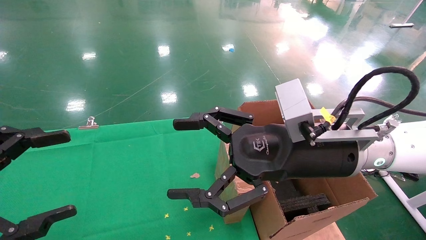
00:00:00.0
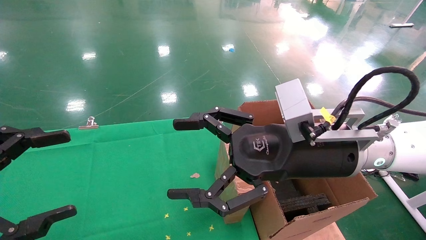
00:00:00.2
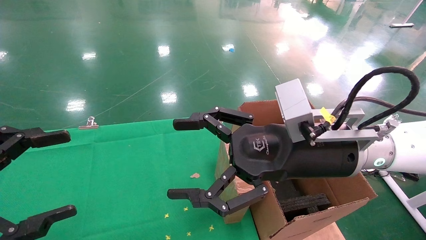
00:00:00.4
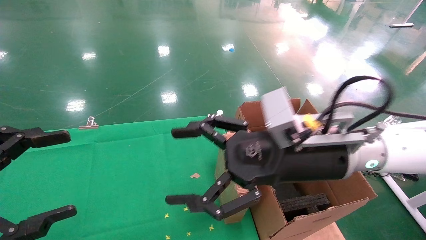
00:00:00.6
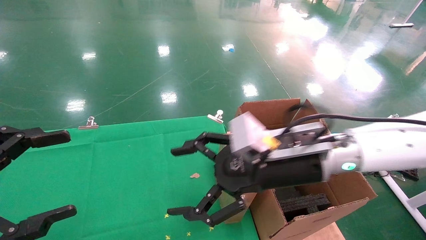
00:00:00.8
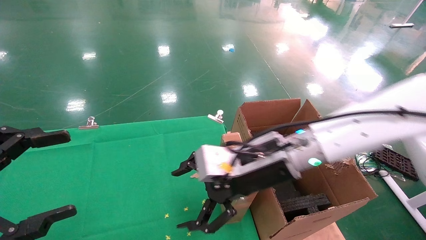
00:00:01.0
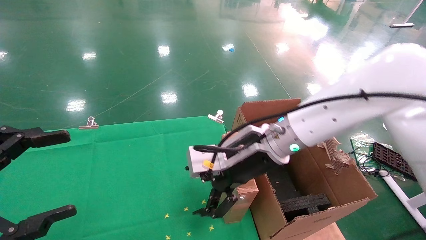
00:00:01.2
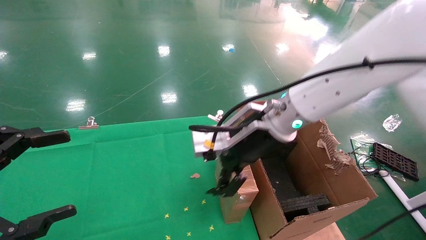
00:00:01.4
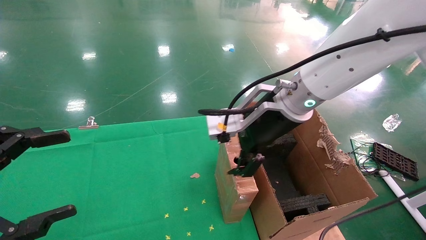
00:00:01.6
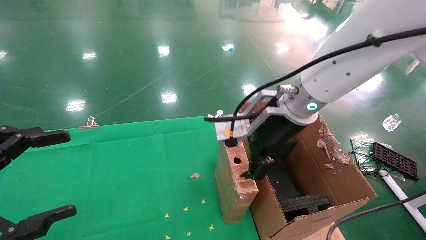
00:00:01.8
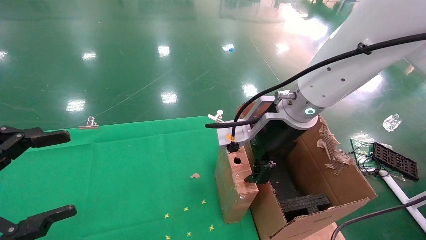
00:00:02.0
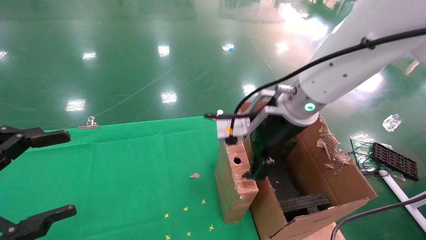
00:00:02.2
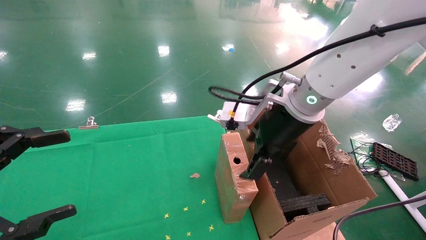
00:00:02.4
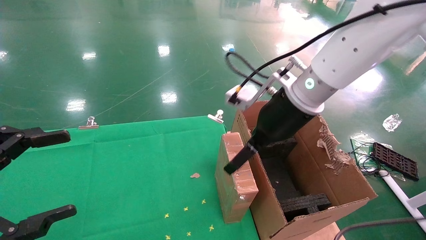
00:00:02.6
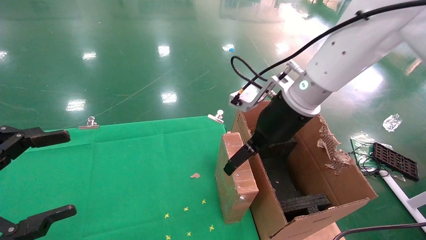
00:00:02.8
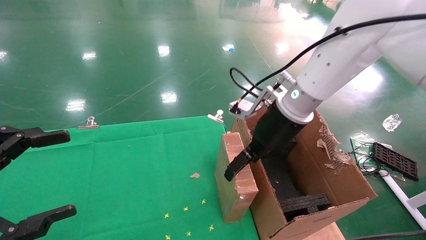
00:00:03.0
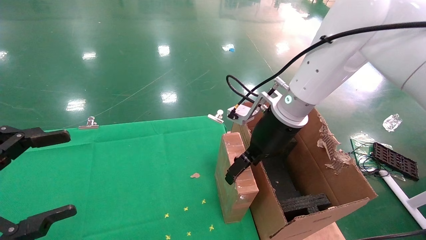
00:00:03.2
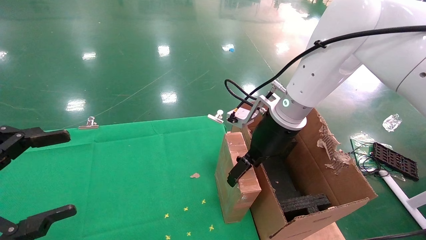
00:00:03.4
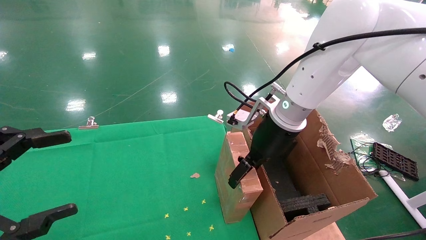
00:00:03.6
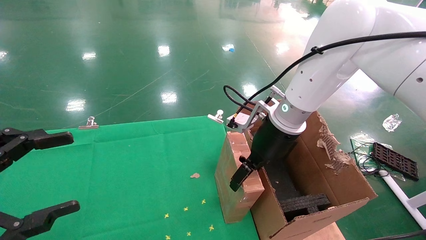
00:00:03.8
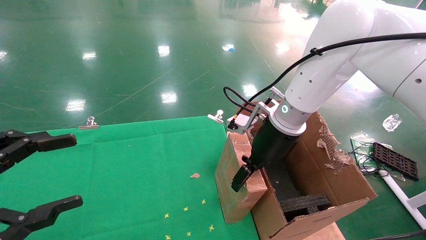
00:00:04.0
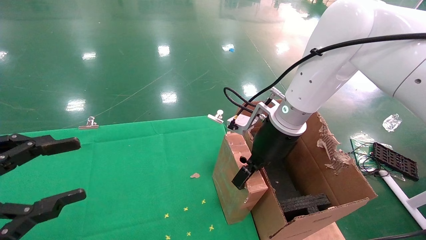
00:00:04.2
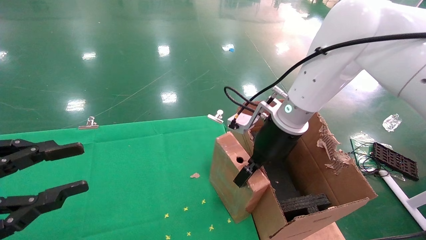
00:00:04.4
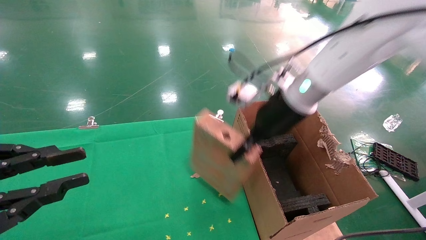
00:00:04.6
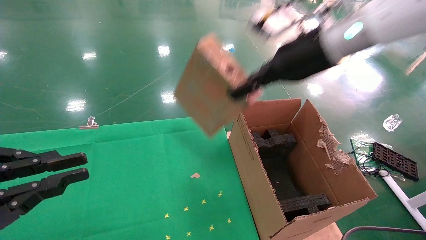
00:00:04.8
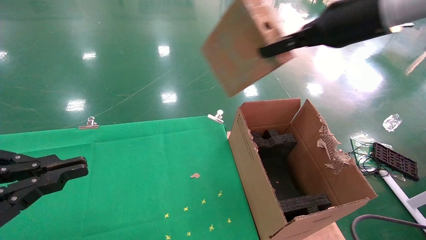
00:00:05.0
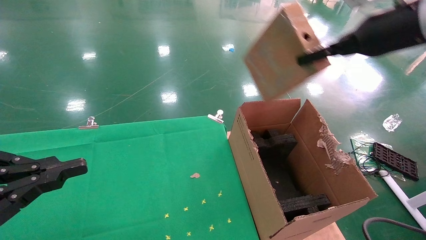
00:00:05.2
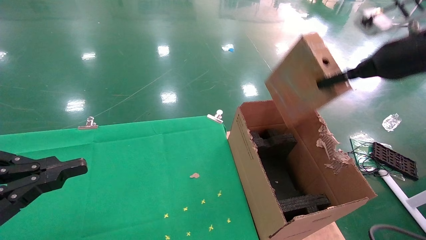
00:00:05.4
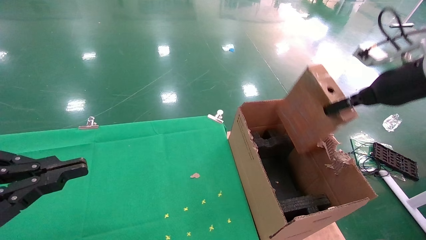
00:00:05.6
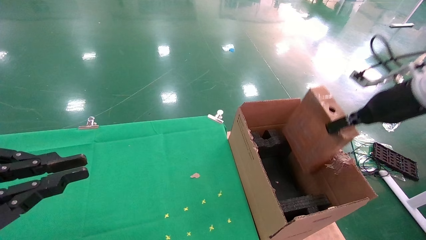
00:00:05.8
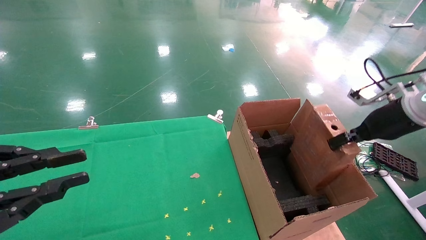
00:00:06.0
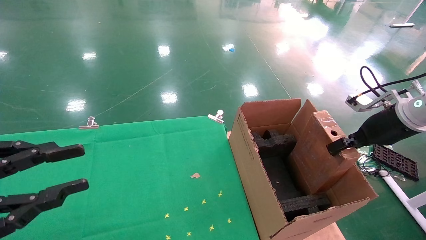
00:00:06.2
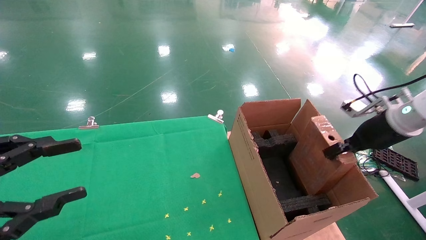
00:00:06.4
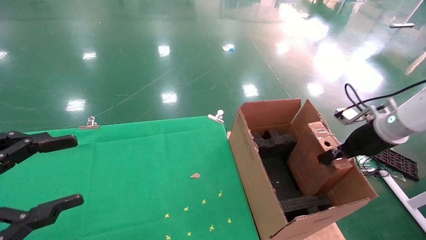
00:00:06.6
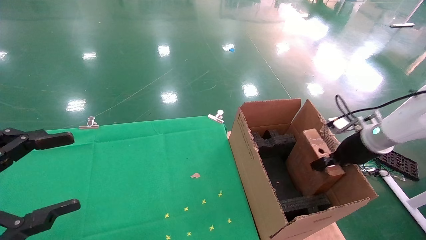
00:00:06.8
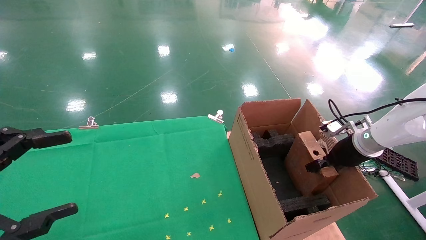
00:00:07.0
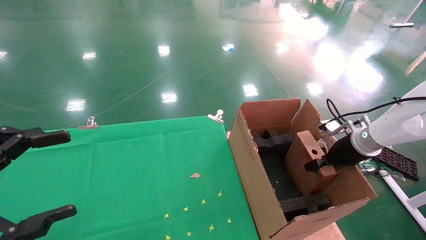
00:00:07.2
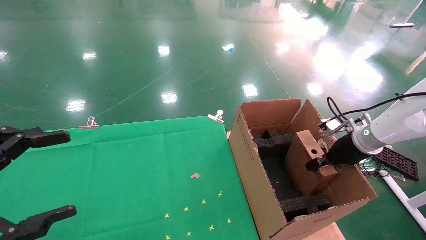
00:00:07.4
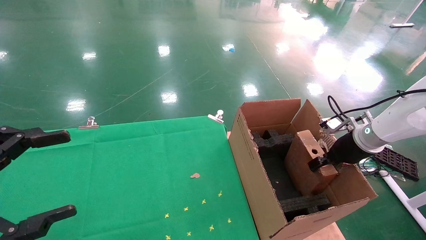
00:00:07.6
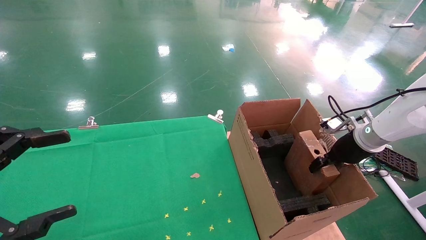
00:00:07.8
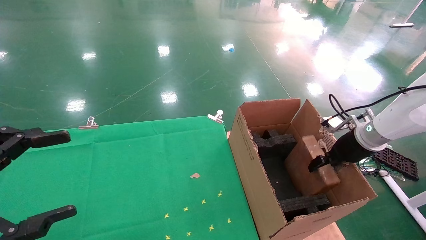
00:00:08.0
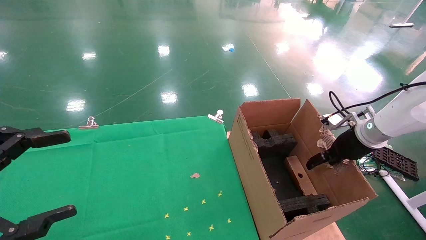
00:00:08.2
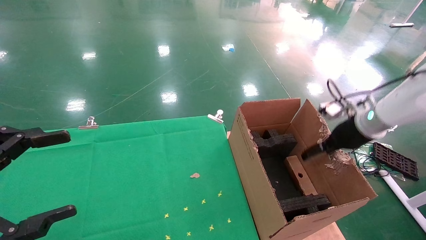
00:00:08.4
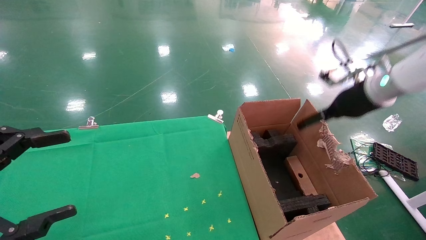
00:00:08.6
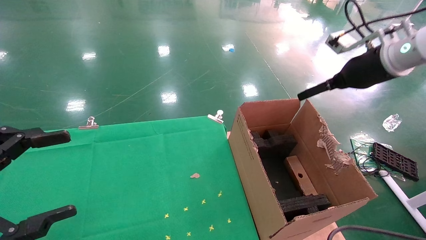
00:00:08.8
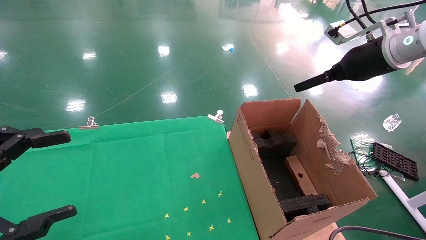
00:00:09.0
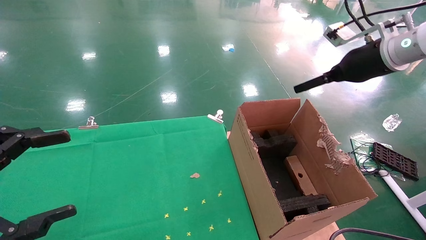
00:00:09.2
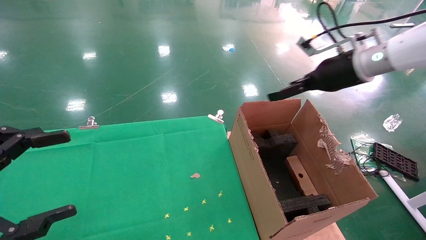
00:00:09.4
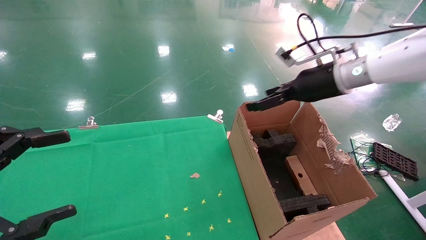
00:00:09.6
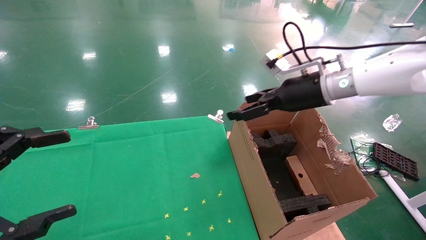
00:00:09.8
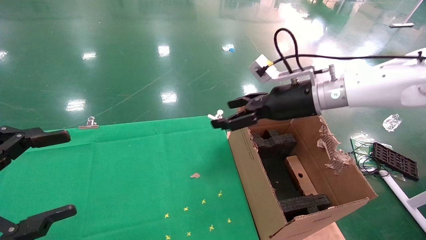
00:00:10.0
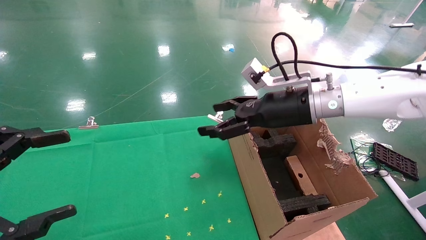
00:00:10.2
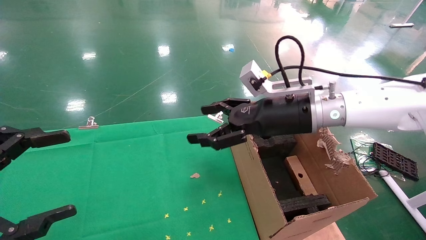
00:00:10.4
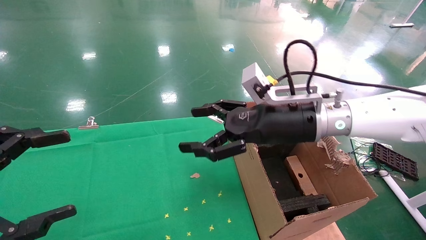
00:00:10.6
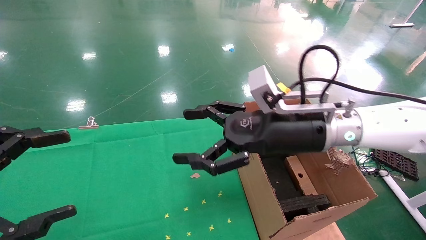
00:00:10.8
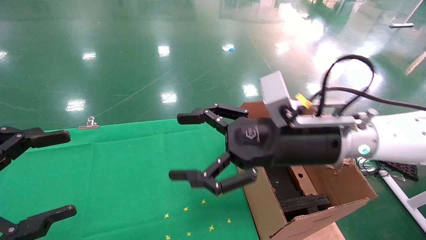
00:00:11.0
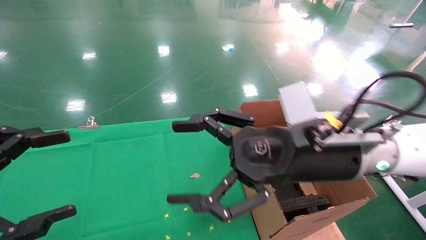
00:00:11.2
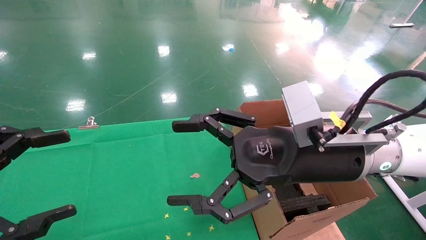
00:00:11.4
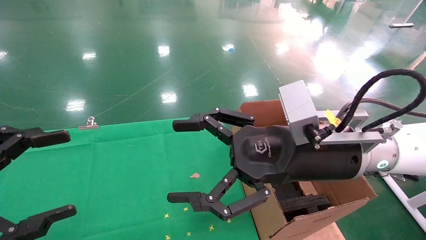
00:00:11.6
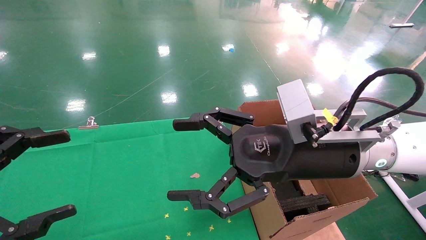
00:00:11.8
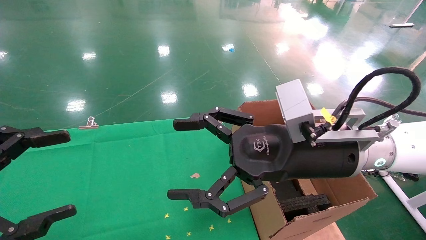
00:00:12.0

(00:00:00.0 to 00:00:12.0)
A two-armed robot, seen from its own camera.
Task of the whole recording: using a robotic arm to pick up a cardboard box and palace it the carton.
Step, 00:00:00.6 - 00:00:04.4: Pick up the mouse and the power cord paper box.
Step, 00:00:04.6 - 00:00:08.4: Place the mouse and the power cord paper box into the container.
00:00:00.0 - 00:00:01.6: The right gripper heads forward, covering approximately 10 cm.
00:00:01.6 - 00:00:03.0: The right gripper ends up approximately 5 cm from where it was.
00:00:03.0 - 00:00:04.4: The left gripper closes up; the right gripper closes.
00:00:04.4 - 00:00:06.0: The right gripper moves to the right, about 25 cm. Meanwhile the left gripper closes.
00:00:06.0 - 00:00:07.6: The right gripper goes approximately 10 cm downward and forward, while the left gripper opens its fingers.
00:00:07.6 - 00:00:09.0: The right gripper heads upward, covering about 20 cm, and opens up.
00:00:09.0 - 00:00:10.4: The right gripper moves to the left and downward, roughly 20 cm.
00:00:10.4 - 00:00:12.0: The right gripper goes some 10 cm backward.

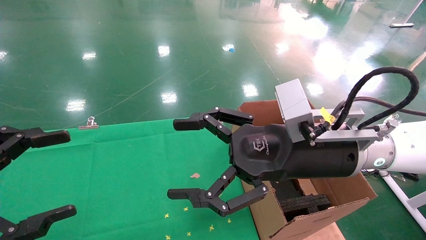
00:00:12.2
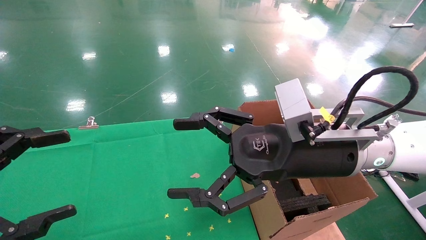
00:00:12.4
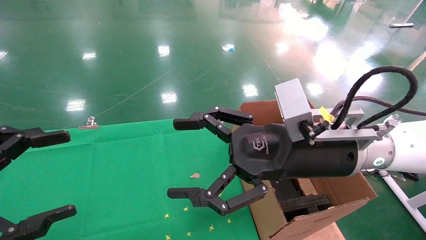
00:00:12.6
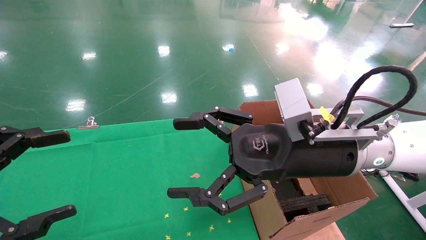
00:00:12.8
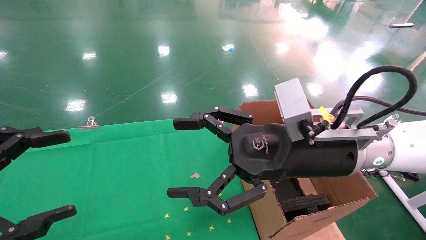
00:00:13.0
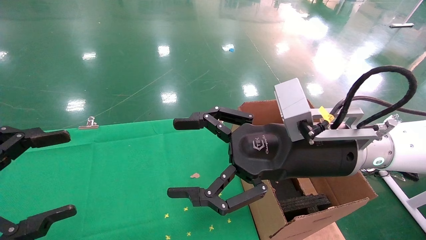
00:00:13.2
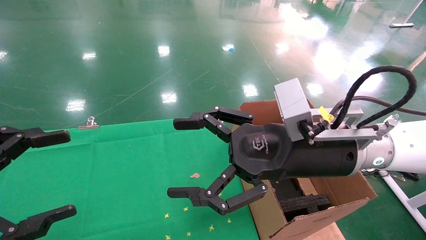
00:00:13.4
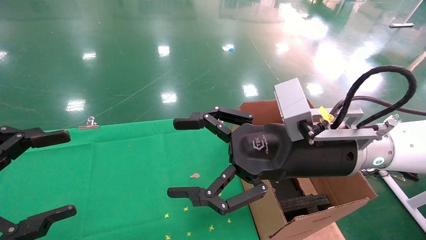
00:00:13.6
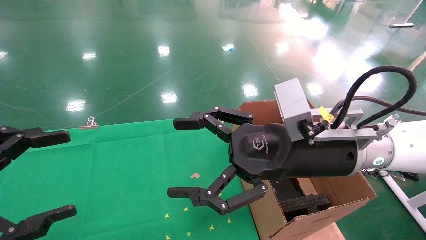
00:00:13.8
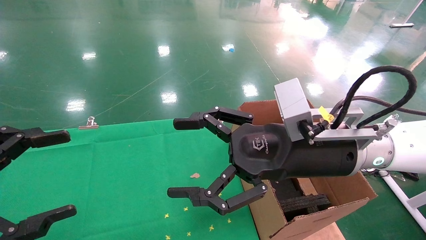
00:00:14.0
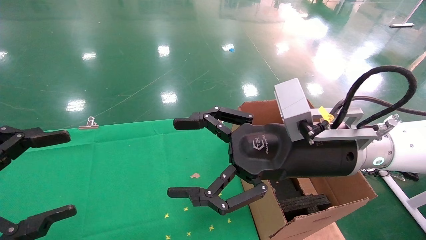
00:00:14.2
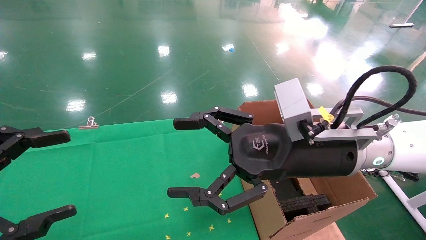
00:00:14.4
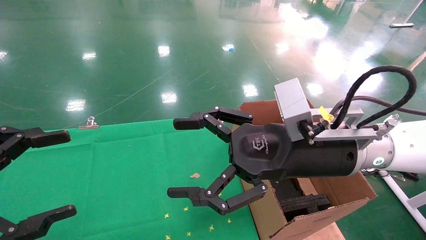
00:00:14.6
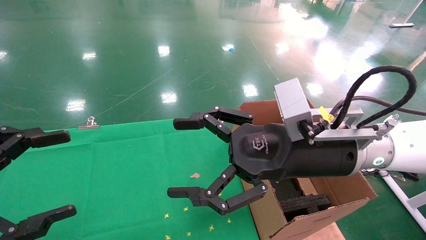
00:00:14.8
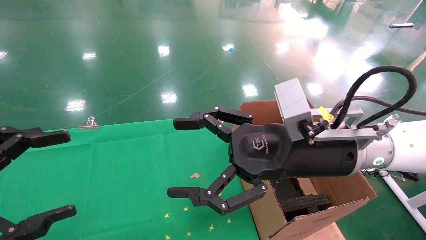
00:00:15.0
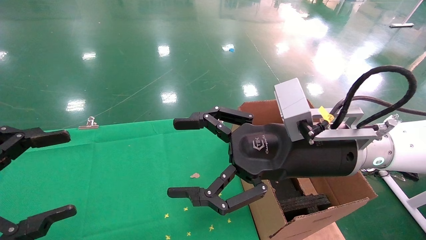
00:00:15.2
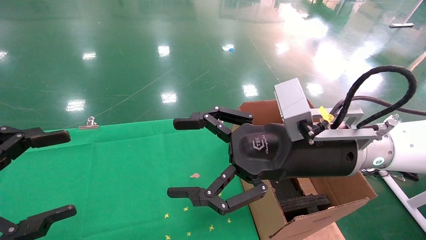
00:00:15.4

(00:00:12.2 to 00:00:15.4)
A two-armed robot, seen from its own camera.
Task of the whole recording: using a robotic arm to pick up a cardboard box and palace it the carton.
00:00:12.2 - 00:00:15.4: The two grippers keep their place.
